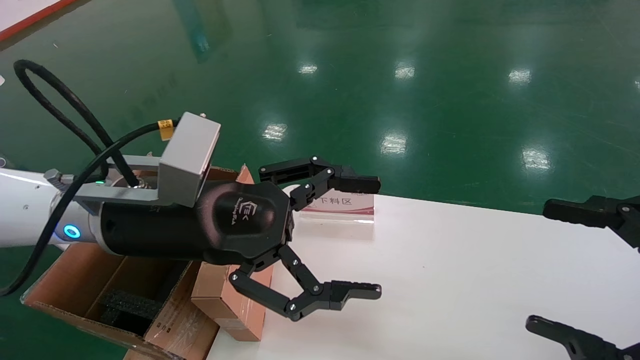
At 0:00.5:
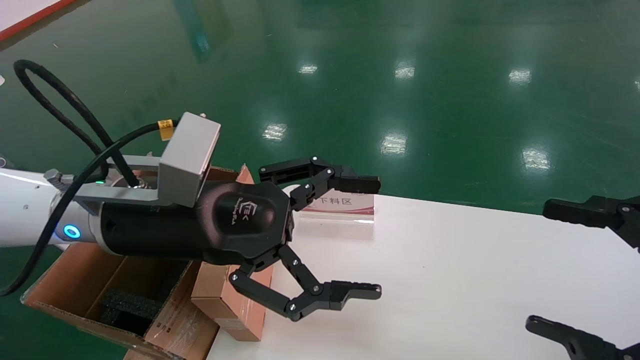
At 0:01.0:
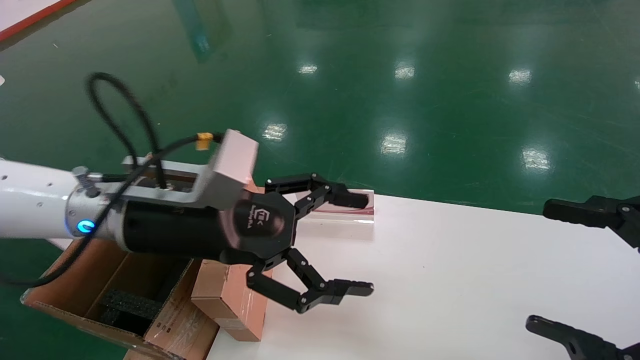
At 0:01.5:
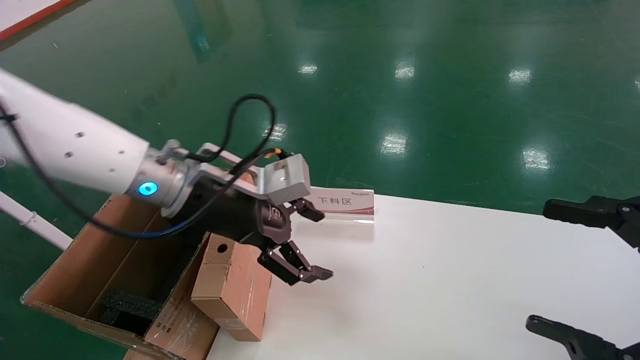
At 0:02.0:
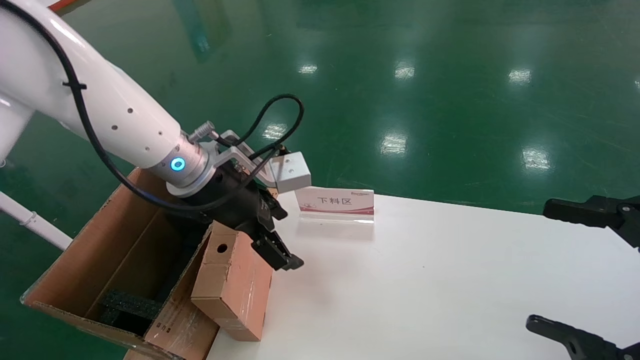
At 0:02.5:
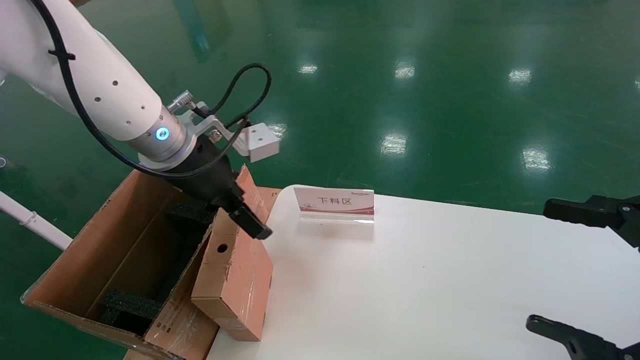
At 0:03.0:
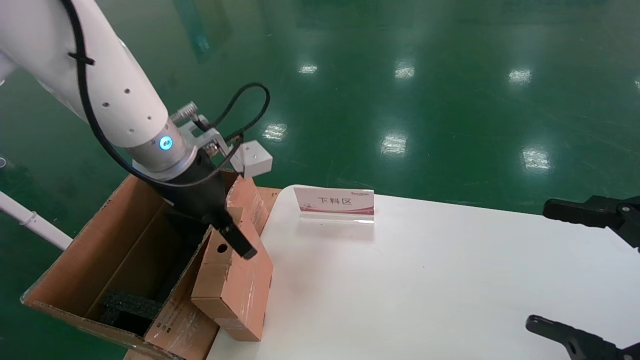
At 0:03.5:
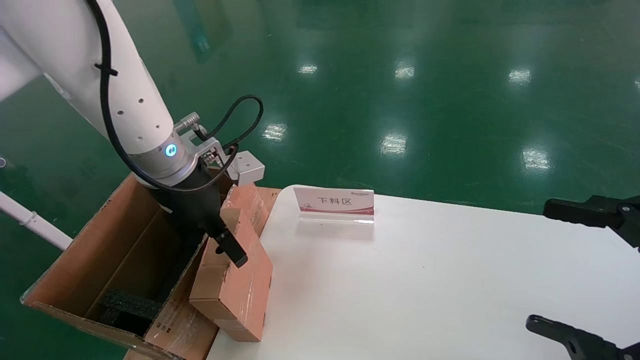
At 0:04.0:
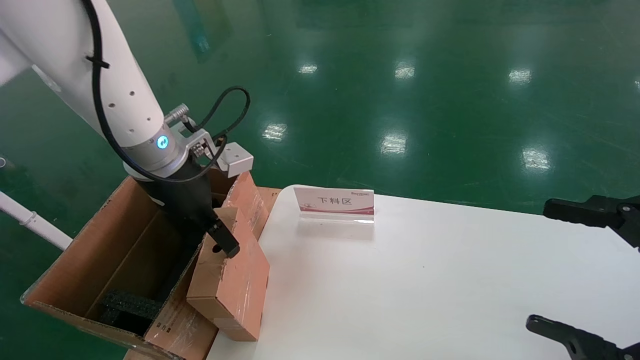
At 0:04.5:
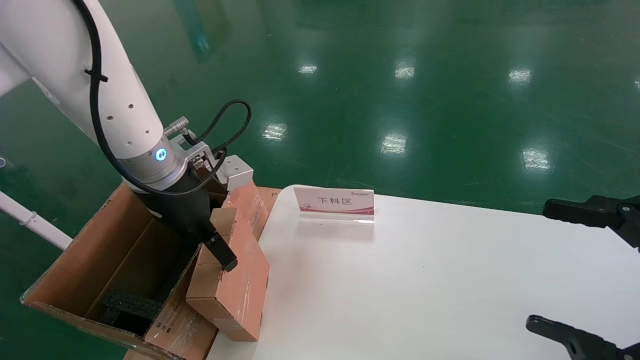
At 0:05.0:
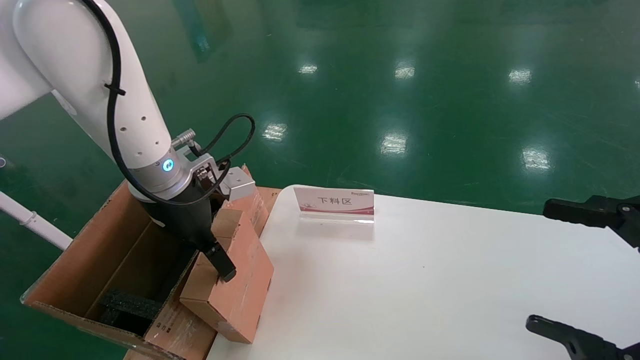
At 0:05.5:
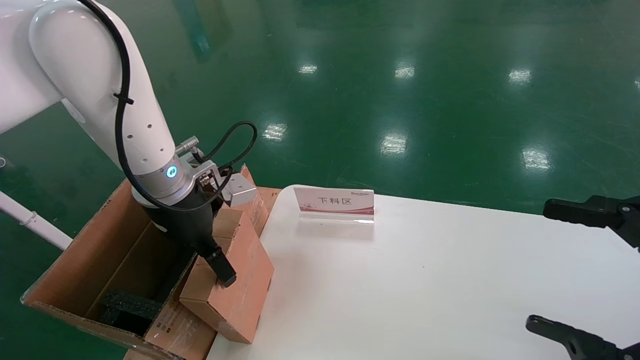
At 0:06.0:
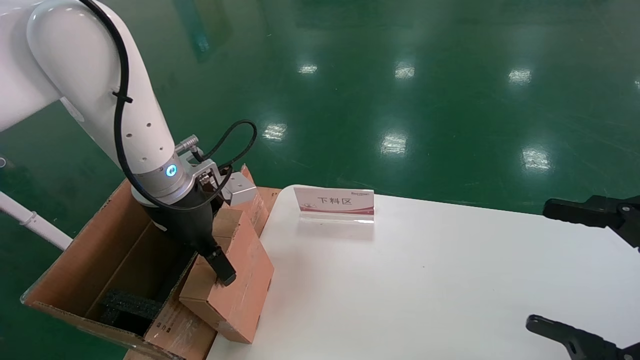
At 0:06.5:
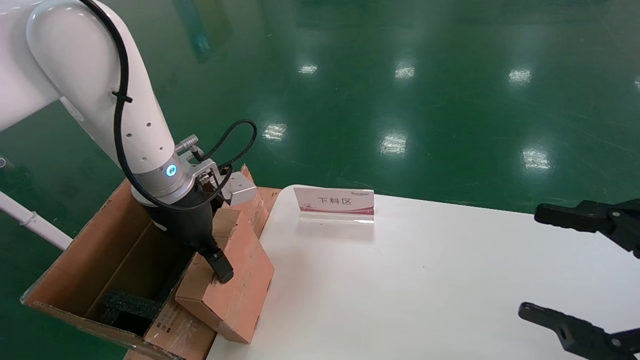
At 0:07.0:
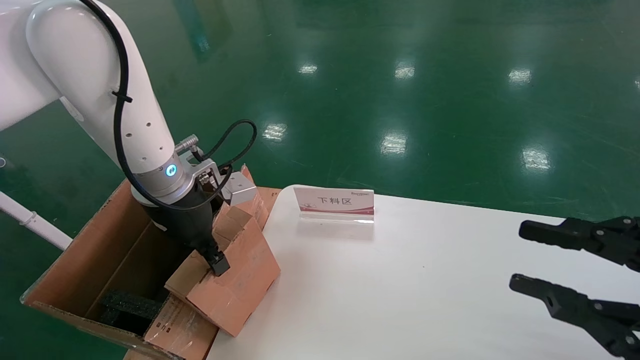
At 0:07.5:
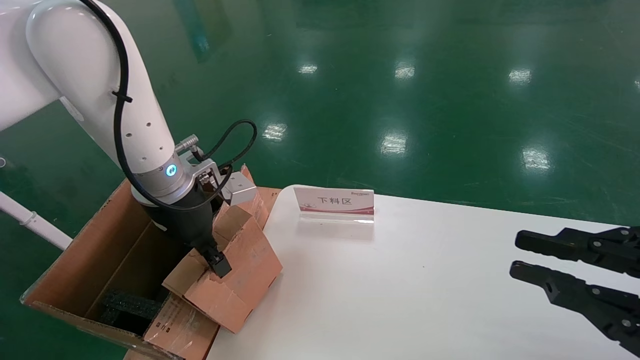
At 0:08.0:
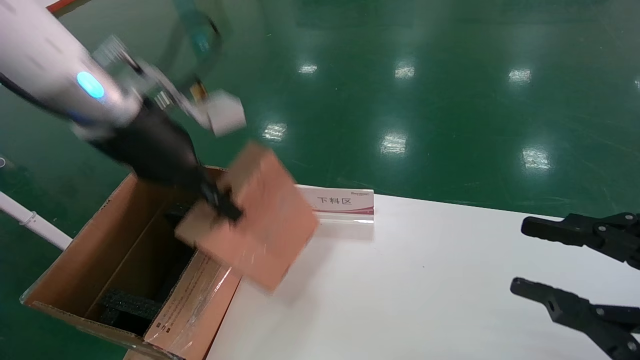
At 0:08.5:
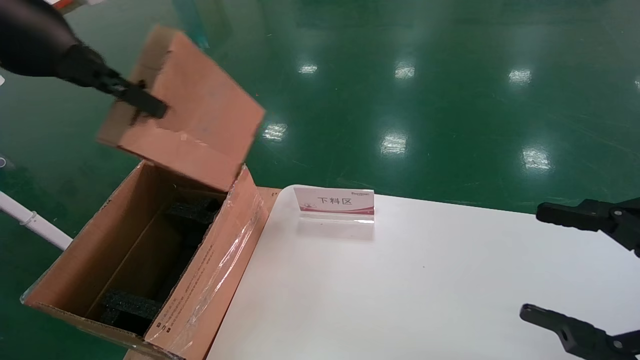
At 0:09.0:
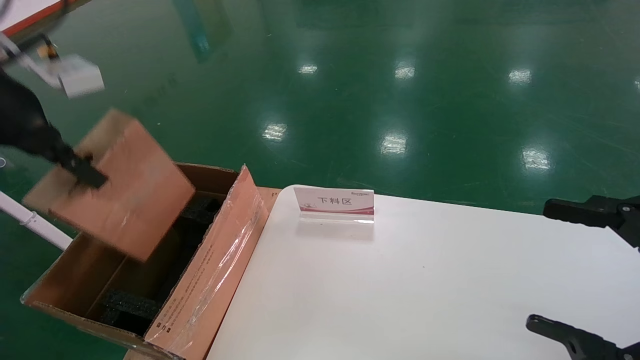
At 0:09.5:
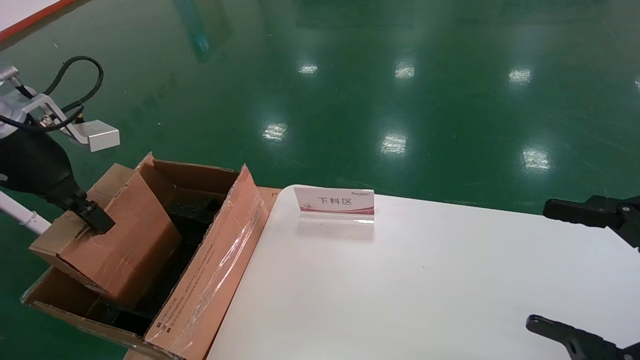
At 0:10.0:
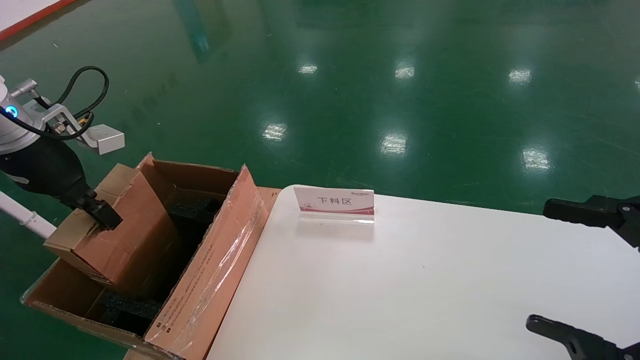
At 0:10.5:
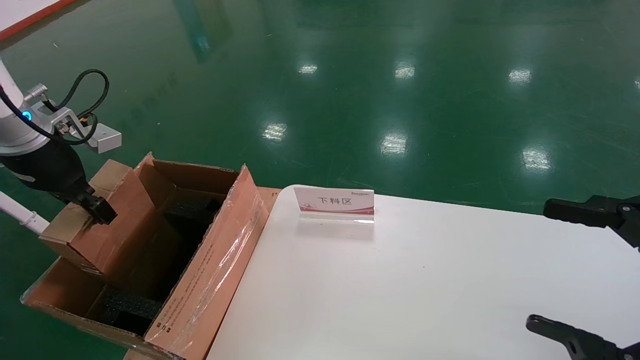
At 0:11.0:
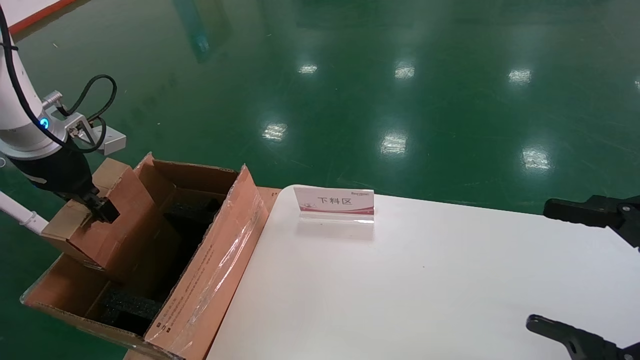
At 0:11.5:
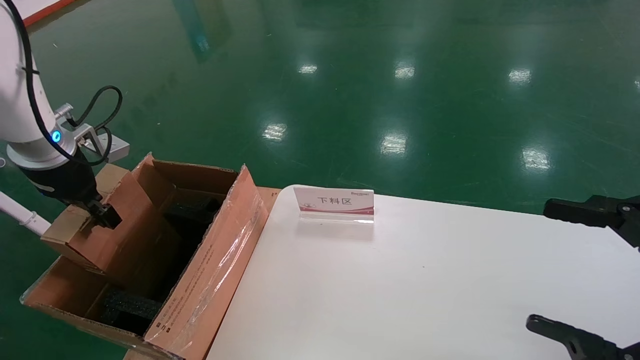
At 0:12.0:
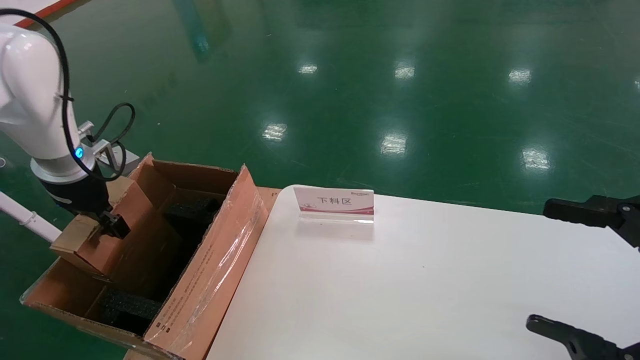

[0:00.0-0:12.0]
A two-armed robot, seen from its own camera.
Task of the whole recording: pick up the small cardboard box and load it into the large cardboard box.
Step, 0:01.5 to 0:06.5: Pick up the mouse and power cord box.
0:00.0 to 0:02.0: The left gripper goes roughly 10 cm forward.
0:04.0 to 0:06.0: There are only small adjustments of the grippers.
0:06.0 to 0:08.0: The left gripper shifts approximately 10 cm upward, and closes, while the right gripper closes its fingers.
0:08.0 to 0:10.0: The right gripper opens up, while the left gripper heads to the left, covering some 15 cm.
0:10.0 to 0:12.0: The left gripper goes roughly 10 cm downward and forward.

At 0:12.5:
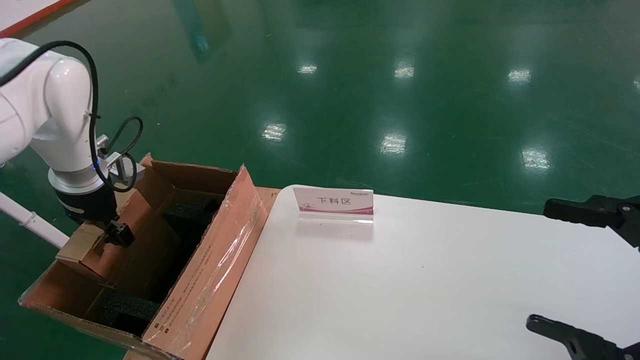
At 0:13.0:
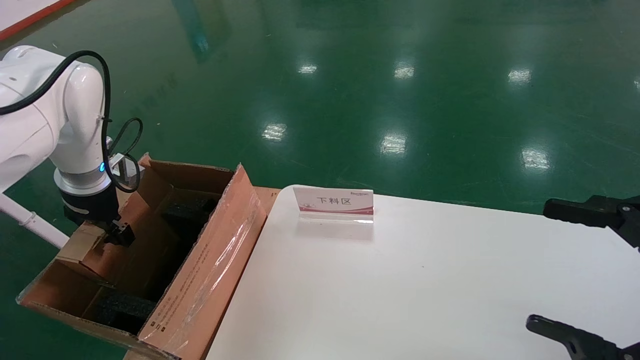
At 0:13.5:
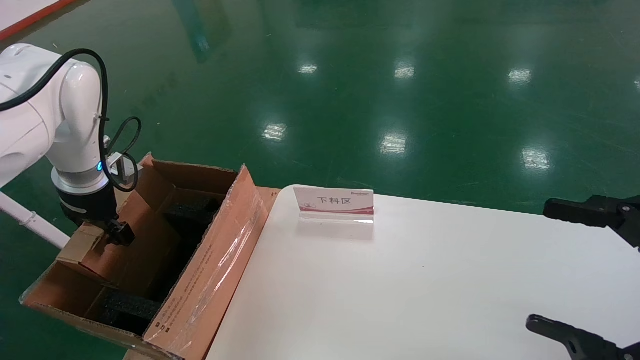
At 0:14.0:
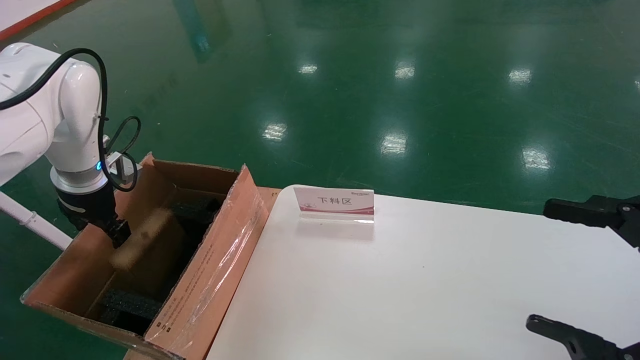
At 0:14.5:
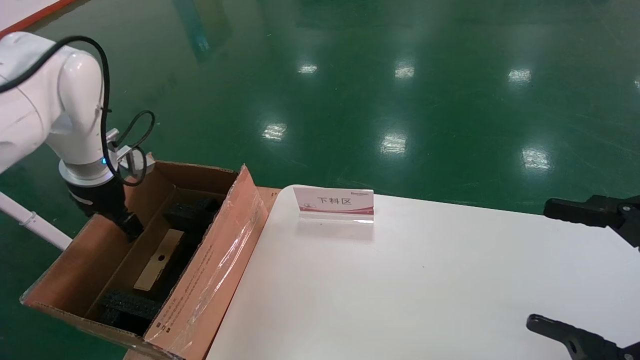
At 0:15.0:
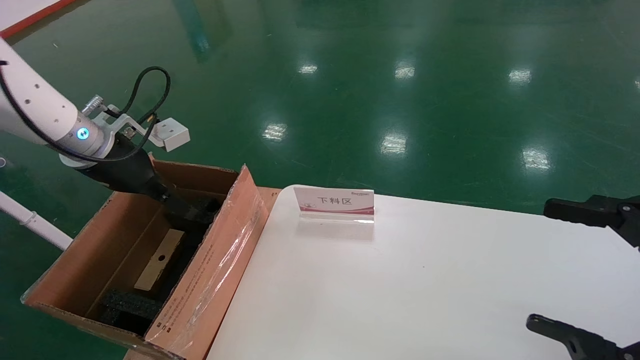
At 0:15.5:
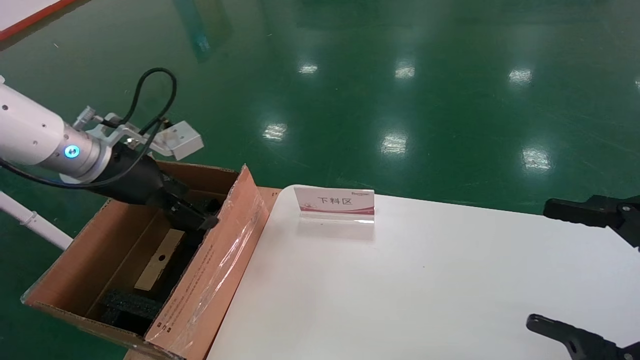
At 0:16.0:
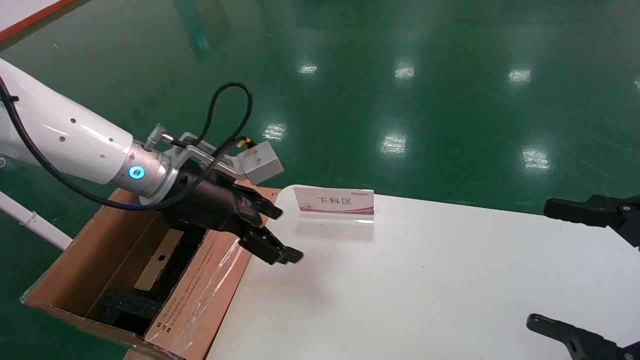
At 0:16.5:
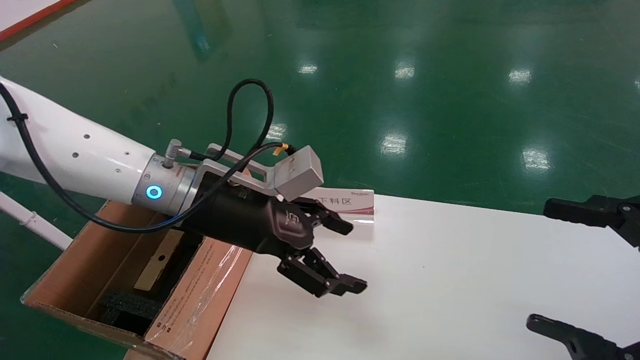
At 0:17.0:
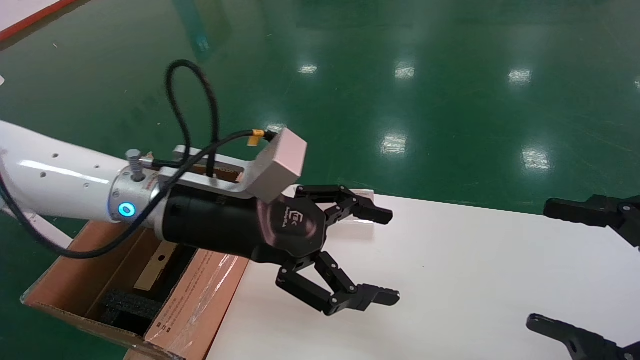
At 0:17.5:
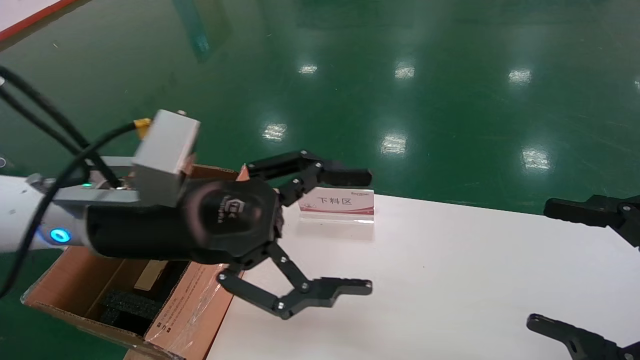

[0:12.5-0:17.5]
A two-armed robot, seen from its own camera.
Task of the whole recording: pick up the small cardboard box and load it into the large cardboard box.
0:12.5 to 0:15.0: The left gripper heads to the right and upward, covering roughly 10 cm, and opens.
0:15.0 to 0:17.5: The left gripper is displaced to the right and backward by roughly 20 cm.
